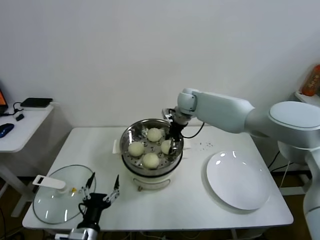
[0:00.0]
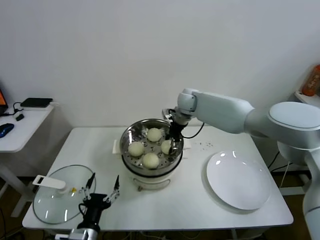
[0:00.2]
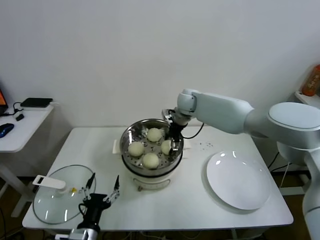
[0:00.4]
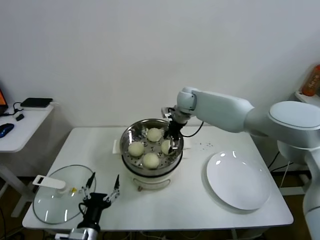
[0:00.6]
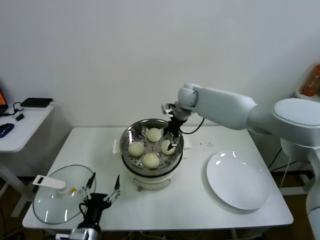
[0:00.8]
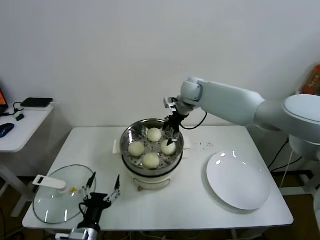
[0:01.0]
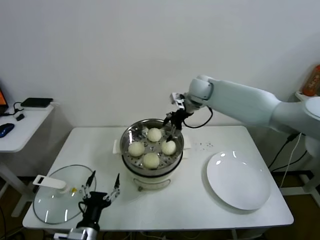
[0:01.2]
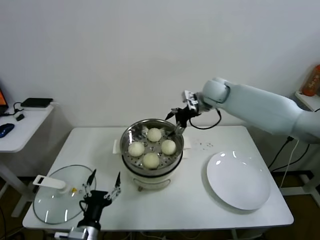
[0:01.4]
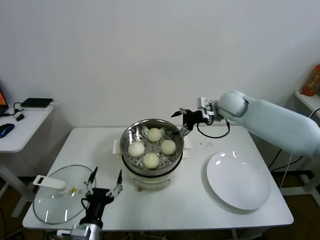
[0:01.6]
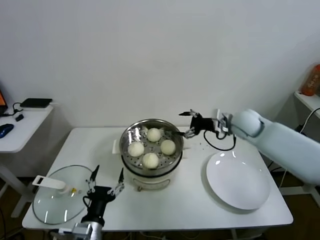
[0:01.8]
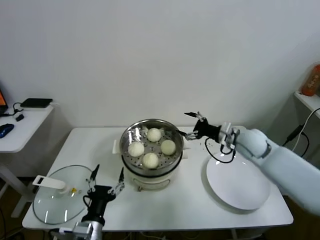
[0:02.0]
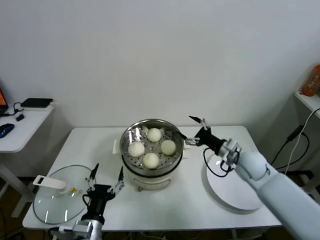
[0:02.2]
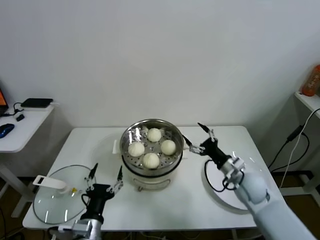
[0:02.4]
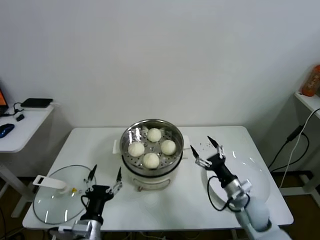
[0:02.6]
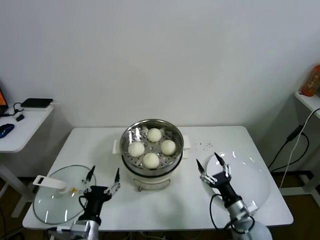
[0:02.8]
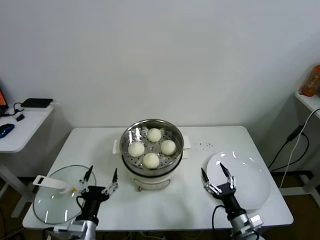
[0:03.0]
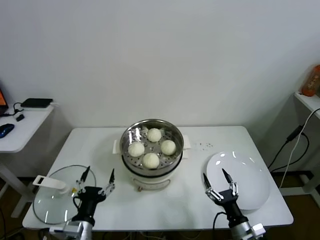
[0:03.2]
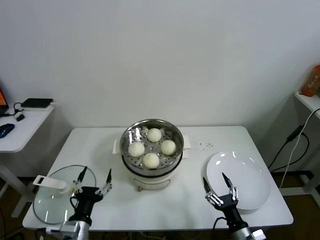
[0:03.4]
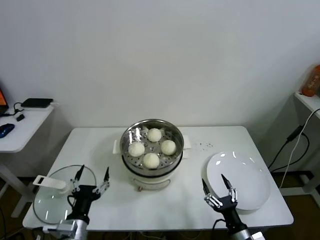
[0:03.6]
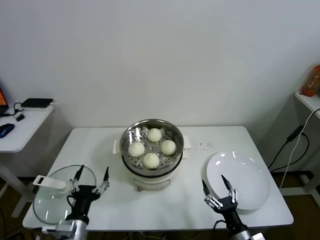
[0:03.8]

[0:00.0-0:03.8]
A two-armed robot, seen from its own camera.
Task of the whole recording: take steamed baozi put them in steamer.
0:00.0 to 0:01.2: The right gripper heads upward, covering roughly 5 cm, and opens.
0:01.2 to 0:02.6: The right gripper is displaced backward, downward and to the right by some 40 cm.
0:02.6 to 0:03.8: The right gripper goes about 15 cm backward and downward.

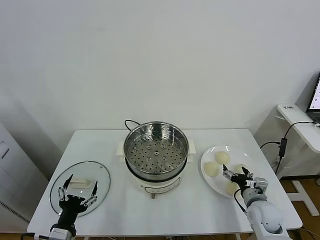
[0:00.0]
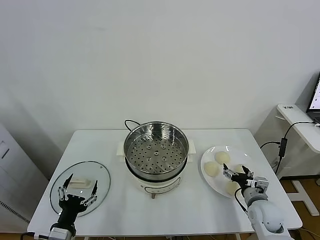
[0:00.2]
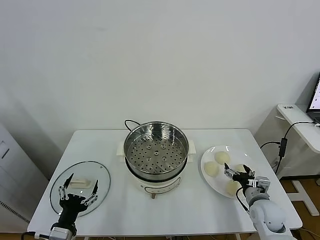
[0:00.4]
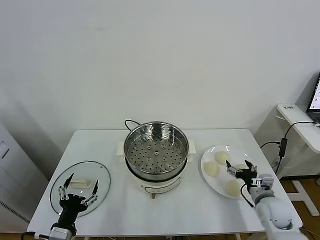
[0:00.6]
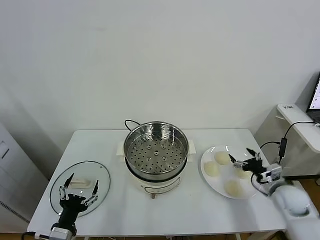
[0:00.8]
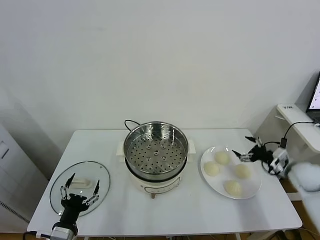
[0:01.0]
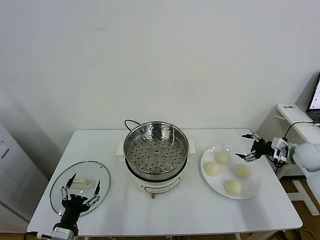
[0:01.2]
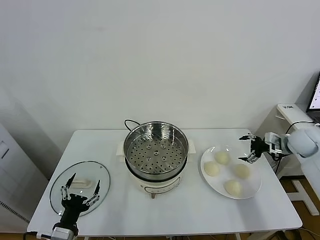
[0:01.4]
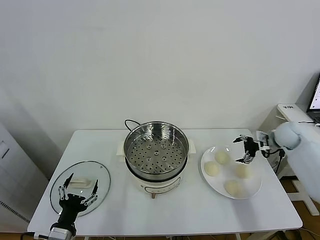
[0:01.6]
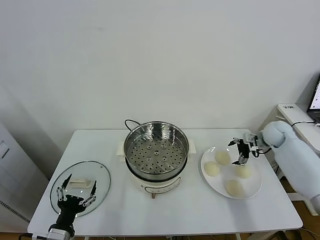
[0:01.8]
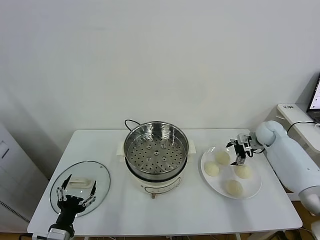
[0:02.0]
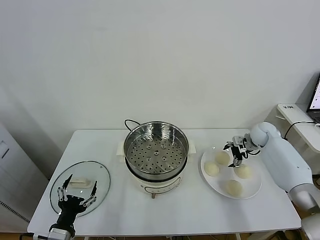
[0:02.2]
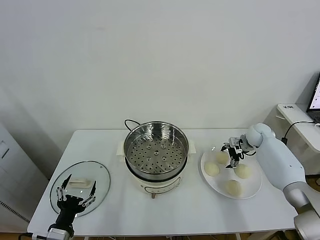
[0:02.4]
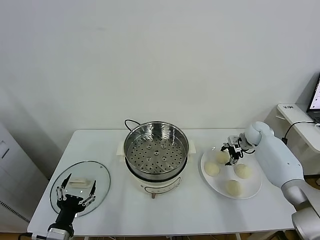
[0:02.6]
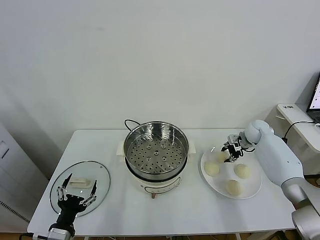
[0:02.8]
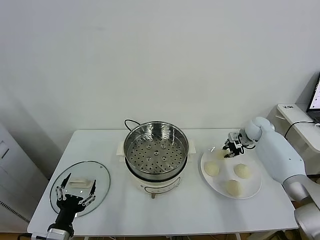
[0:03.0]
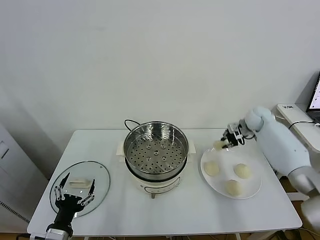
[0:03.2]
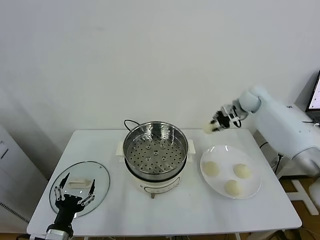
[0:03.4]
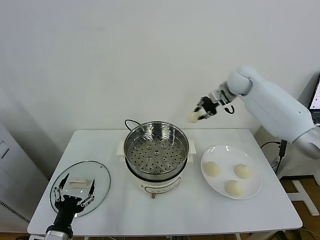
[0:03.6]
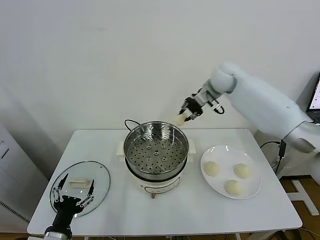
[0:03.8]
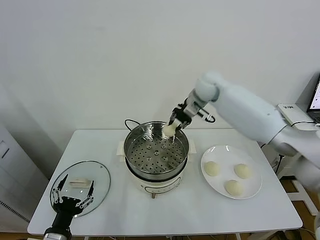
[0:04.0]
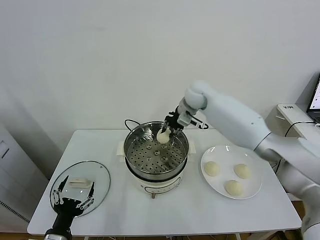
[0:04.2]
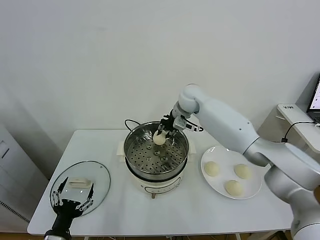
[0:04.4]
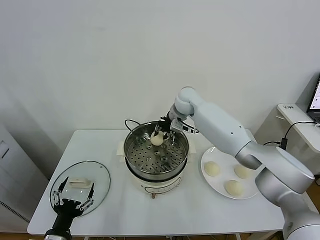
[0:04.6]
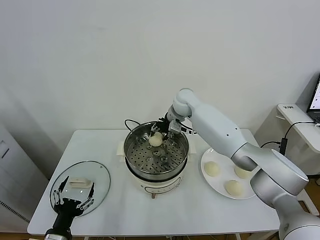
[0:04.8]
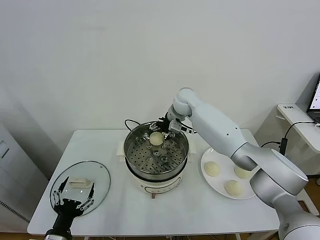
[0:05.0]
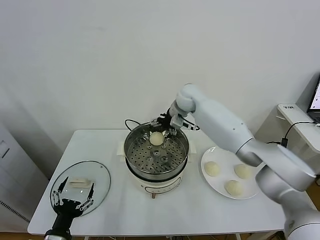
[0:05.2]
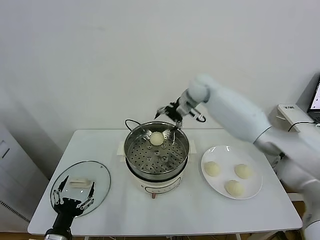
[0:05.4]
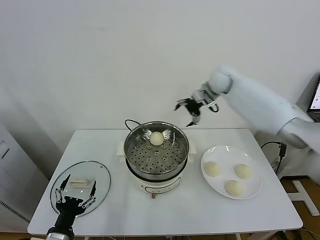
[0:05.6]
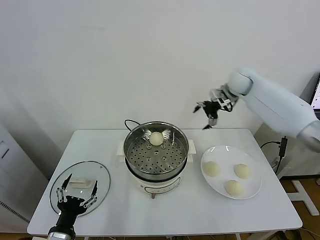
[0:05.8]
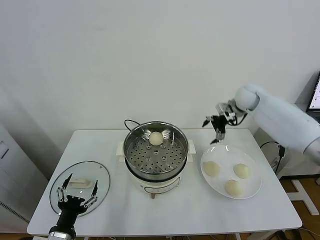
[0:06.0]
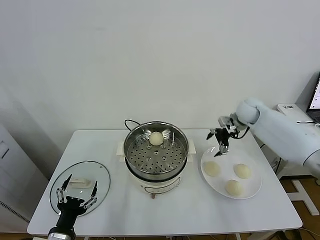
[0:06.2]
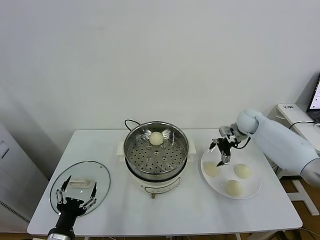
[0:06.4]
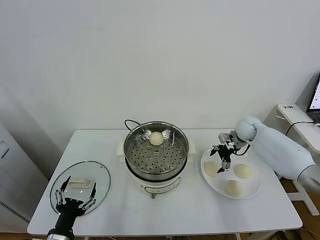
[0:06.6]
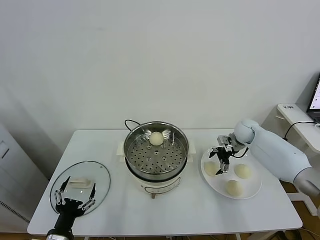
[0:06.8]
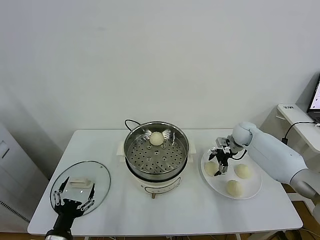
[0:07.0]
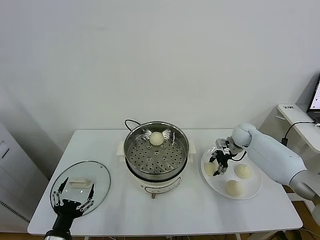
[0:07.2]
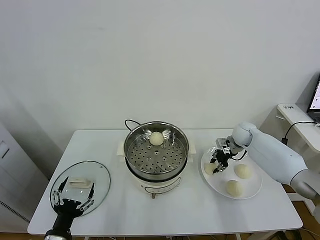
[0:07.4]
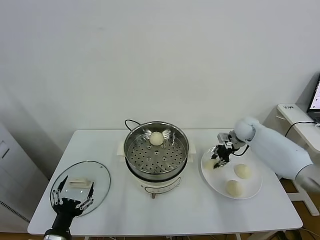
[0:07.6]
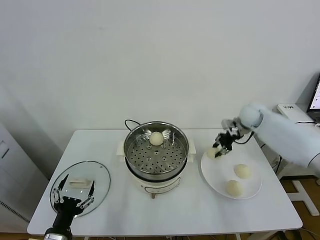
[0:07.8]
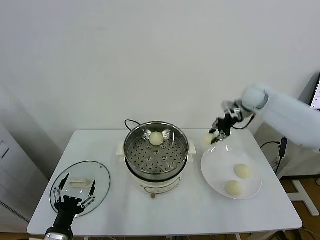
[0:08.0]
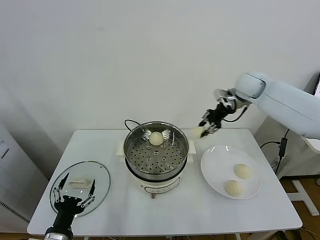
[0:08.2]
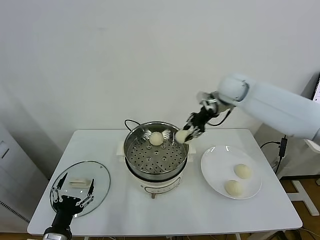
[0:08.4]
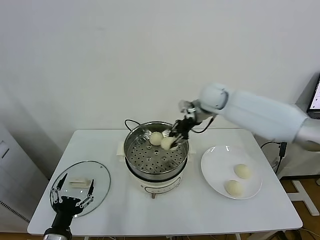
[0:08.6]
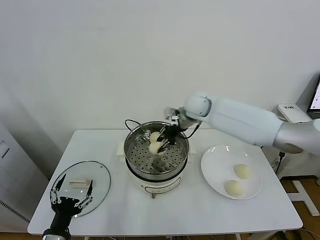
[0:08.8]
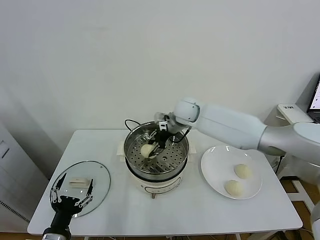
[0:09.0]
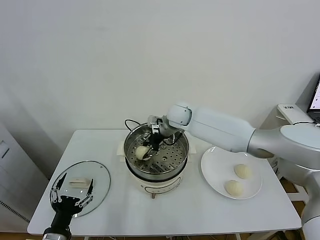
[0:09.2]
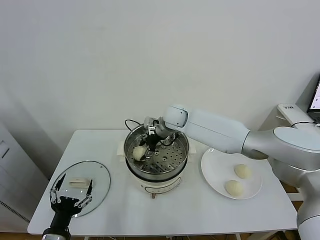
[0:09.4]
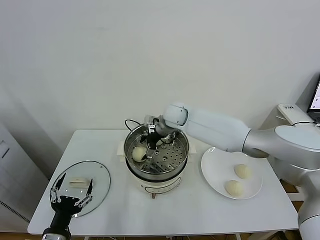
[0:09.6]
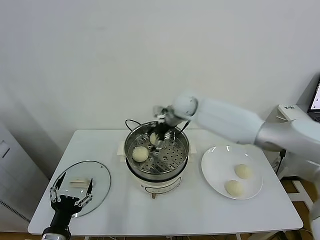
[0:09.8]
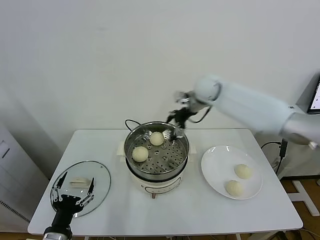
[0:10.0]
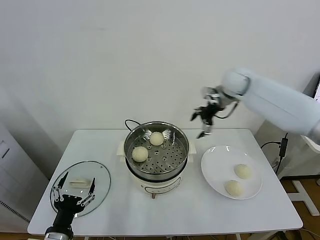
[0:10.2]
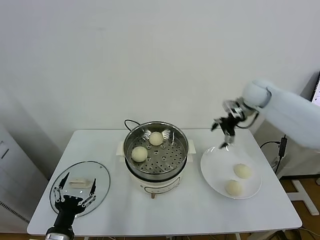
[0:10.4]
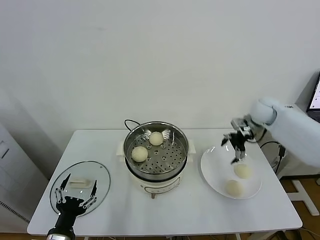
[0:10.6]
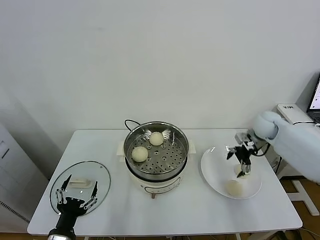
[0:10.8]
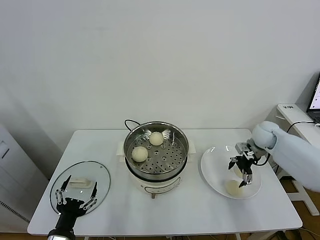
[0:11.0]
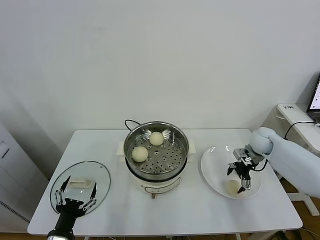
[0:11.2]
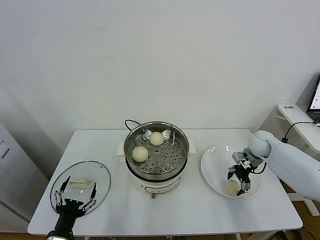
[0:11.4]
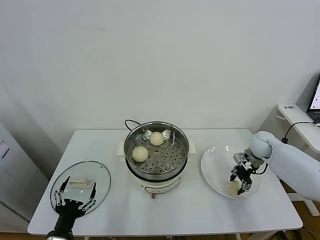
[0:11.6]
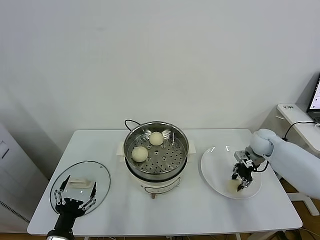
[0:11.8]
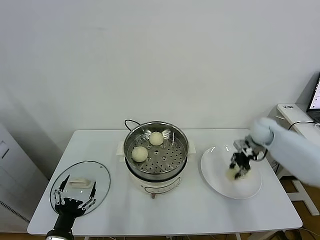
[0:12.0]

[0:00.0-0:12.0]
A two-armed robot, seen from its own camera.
Task of the whole recording: take steamed baozi put them in steamer.
Step, 0:00.0 to 0:02.6: Grasp the baozi in the plate with right gripper.
Step, 0:03.0 to 0:05.0: Place the baozi on the steamer with right gripper.
Step, 0:05.2 to 0:07.2: Grasp the baozi in the plate with right gripper.
Step, 0:07.4 to 0:09.6: Place the baozi on the steamer with right gripper.
Step, 0:09.8 to 0:11.6: Grasp the baozi in the plate with right gripper.
0:01.6 to 0:03.0: The right gripper shifts some 10 cm forward and to the left, and closes.
0:03.0 to 0:04.4: The right gripper moves to the left, approximately 30 cm.
0:04.4 to 0:06.0: The right gripper goes some 25 cm to the right, and opens.
0:06.0 to 0:07.6: The right gripper shifts approximately 10 cm downward, and closes.
0:07.6 to 0:09.0: The right gripper heads to the left, covering roughly 25 cm.
0:09.0 to 0:10.4: The right gripper shifts some 25 cm to the right, and opens.
0:10.4 to 0:12.0: The right gripper moves downward, approximately 10 cm, and closes its fingers.

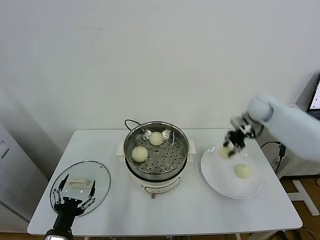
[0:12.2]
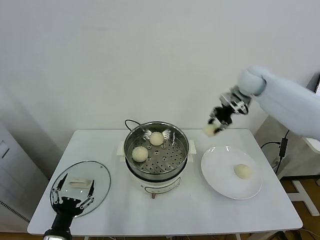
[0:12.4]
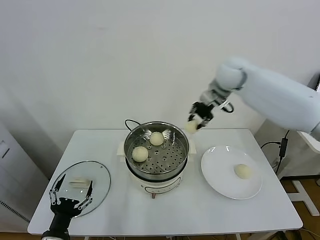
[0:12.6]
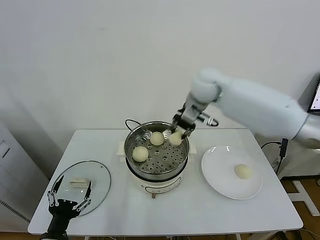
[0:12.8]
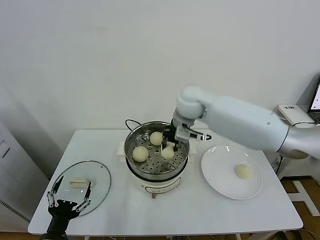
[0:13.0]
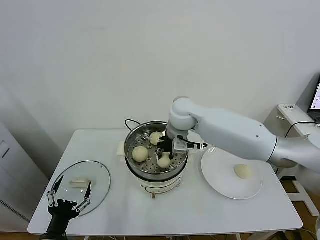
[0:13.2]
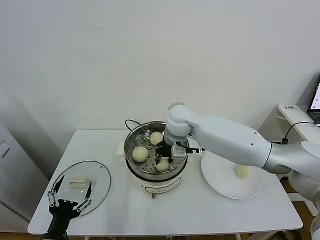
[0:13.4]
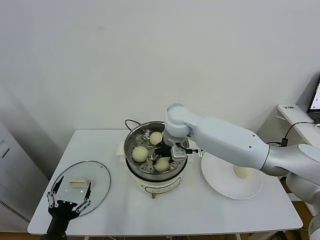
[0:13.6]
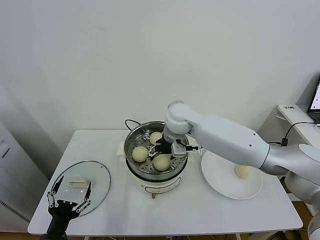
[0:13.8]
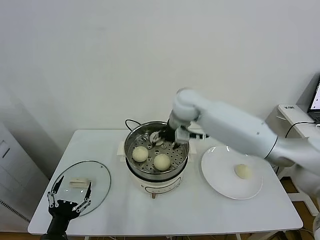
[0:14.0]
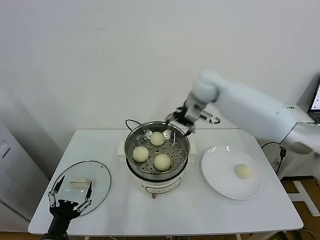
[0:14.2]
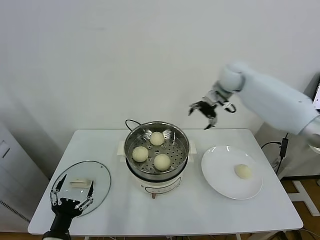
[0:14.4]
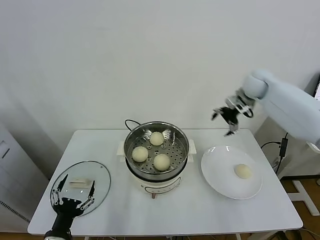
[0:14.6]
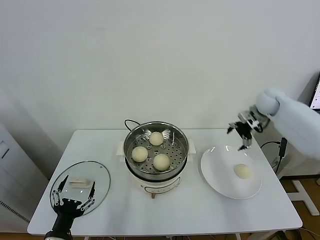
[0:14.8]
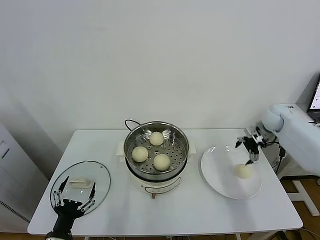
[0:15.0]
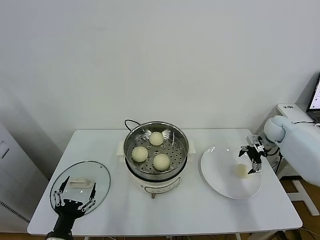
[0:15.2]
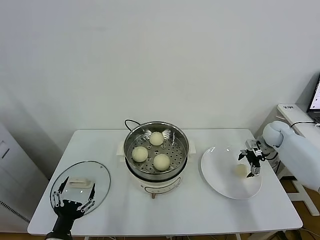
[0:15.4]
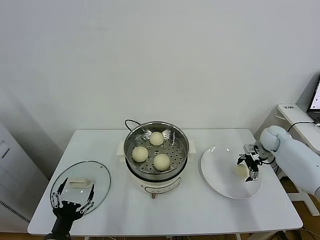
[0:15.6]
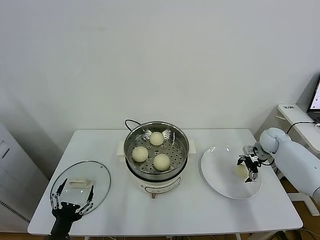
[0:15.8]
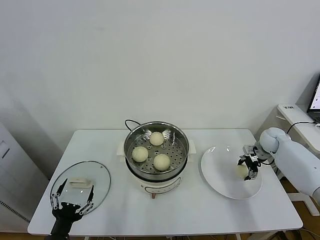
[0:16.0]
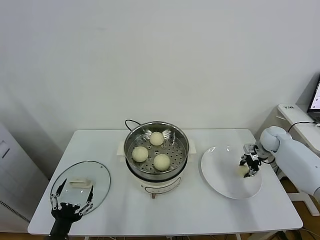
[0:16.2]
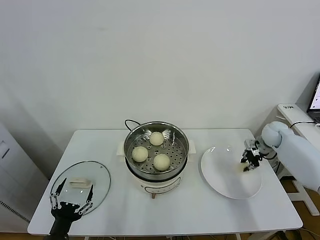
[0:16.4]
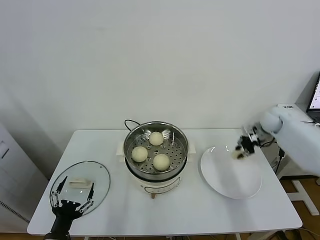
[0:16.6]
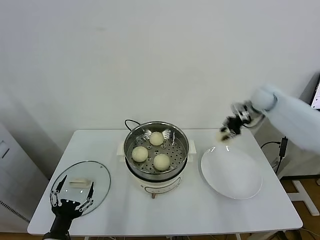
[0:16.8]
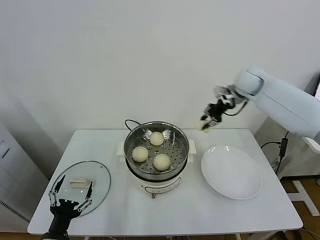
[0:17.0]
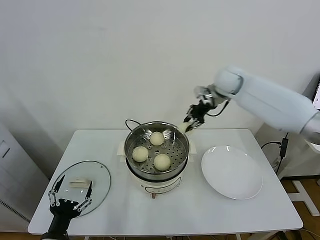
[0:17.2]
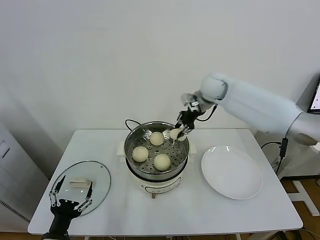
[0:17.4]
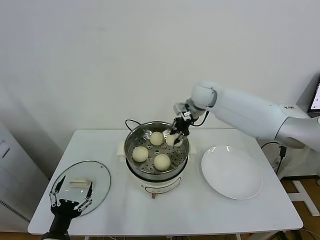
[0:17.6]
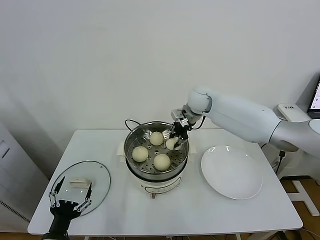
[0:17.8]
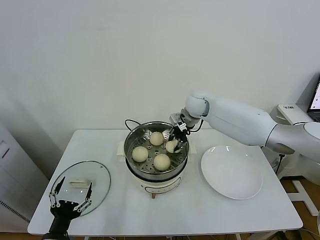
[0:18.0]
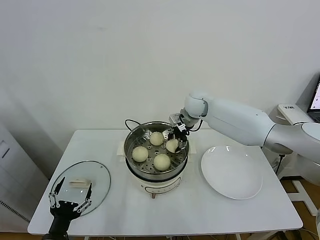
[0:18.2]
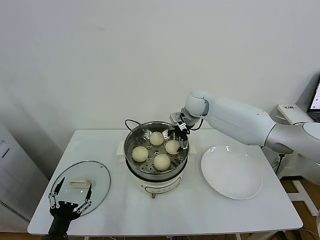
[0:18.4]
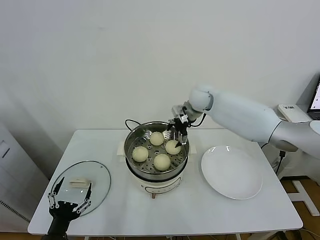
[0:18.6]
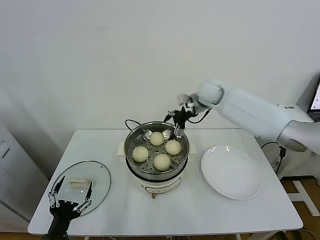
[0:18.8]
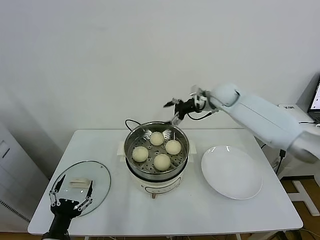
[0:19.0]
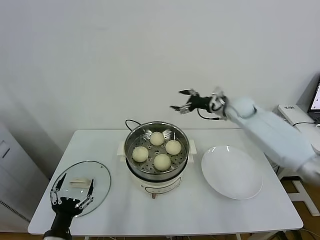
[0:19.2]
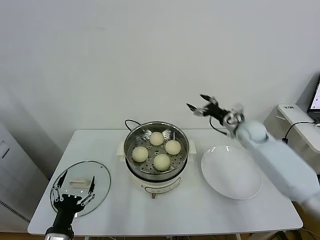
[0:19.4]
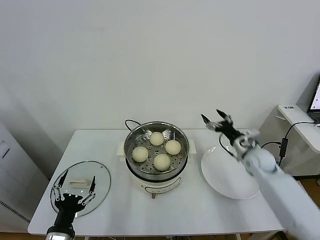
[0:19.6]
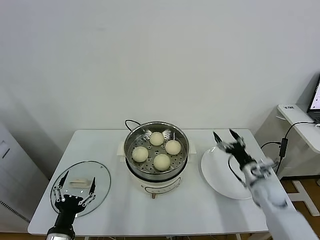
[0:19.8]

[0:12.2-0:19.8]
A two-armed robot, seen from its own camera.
Task of the whole recording: take steamed baozi put them in steamer.
Step, 0:12.2 to 0:13.8: Place the baozi on the steamer with right gripper.
Step, 0:14.0 to 0:16.0: Grasp the baozi in the plate with right gripper.
Step, 0:16.4 to 0:18.4: Place the baozi on the steamer with right gripper.
0:12.2 to 0:13.8: The right gripper shifts some 30 cm to the left, and opens up.
0:13.8 to 0:15.2: The right gripper is displaced to the right by some 40 cm.
0:15.2 to 0:16.8: The right gripper shifts some 15 cm upward and to the left, and closes.
0:16.8 to 0:18.2: The right gripper heads to the left, covering about 25 cm, and opens up.
0:18.2 to 0:19.8: The right gripper heads to the right, backward and downward, covering about 40 cm, and opens.
